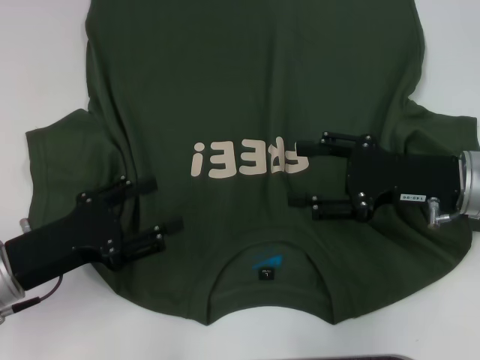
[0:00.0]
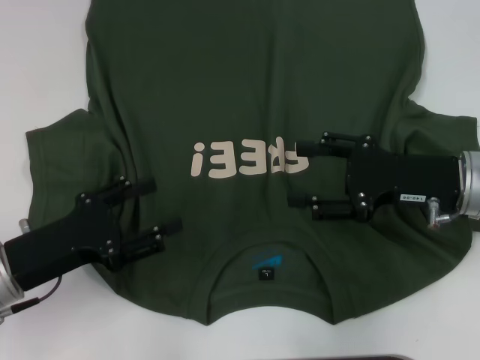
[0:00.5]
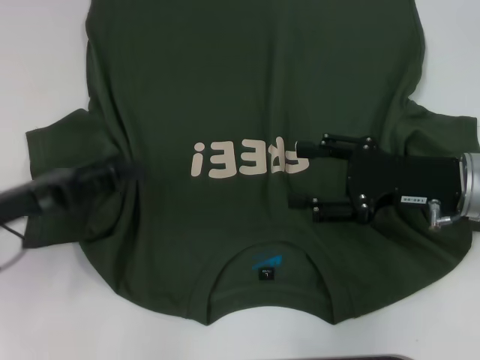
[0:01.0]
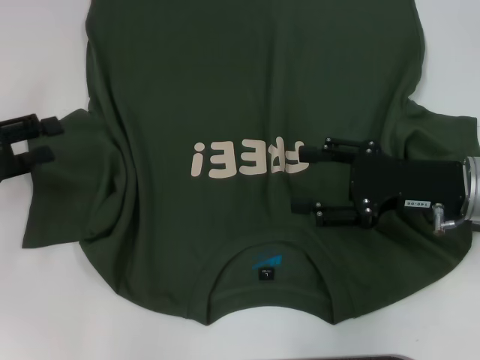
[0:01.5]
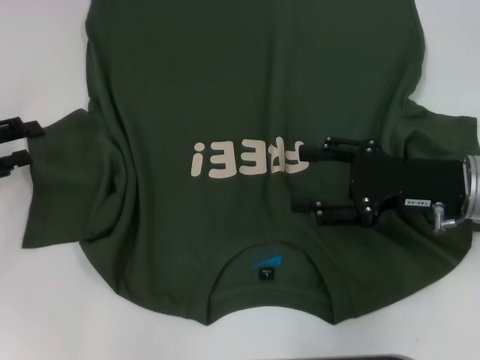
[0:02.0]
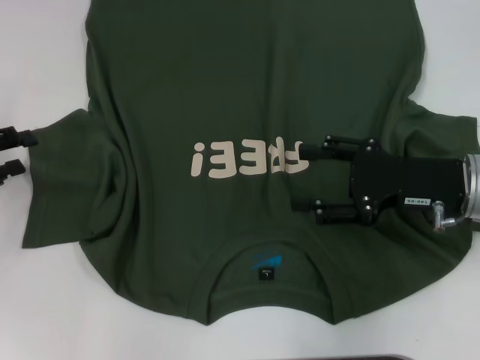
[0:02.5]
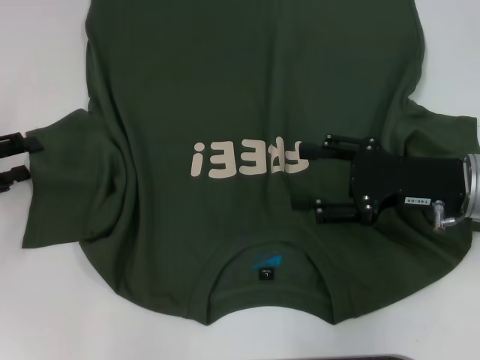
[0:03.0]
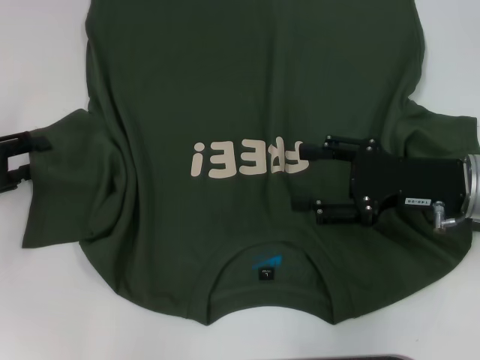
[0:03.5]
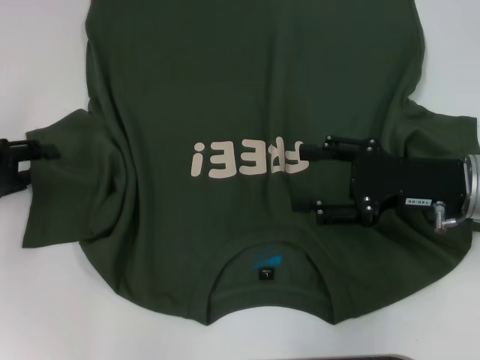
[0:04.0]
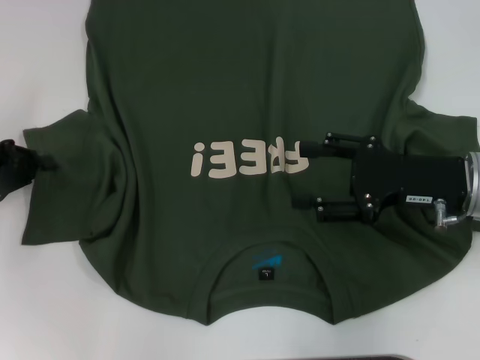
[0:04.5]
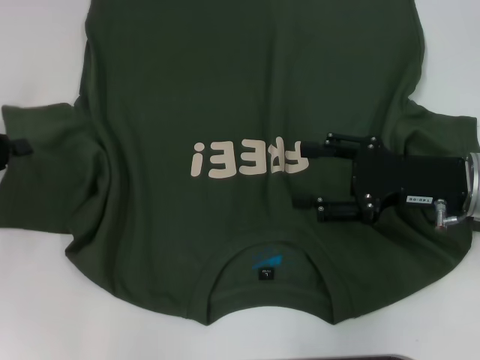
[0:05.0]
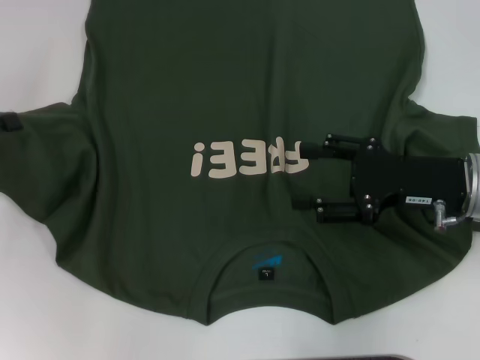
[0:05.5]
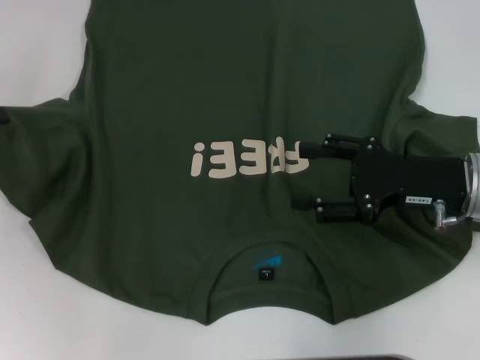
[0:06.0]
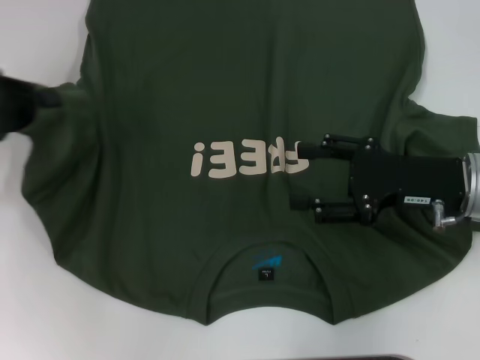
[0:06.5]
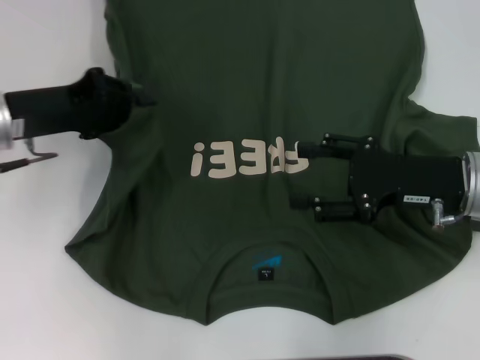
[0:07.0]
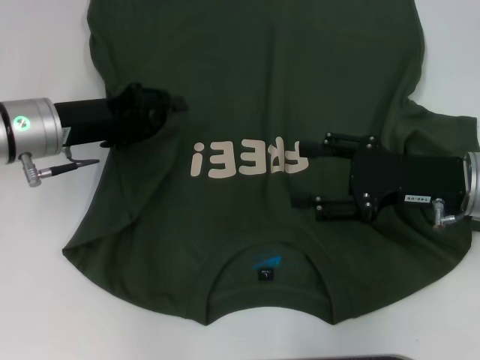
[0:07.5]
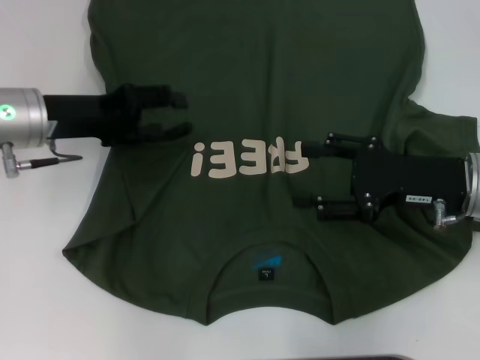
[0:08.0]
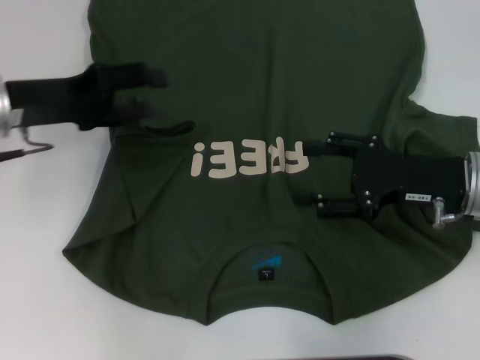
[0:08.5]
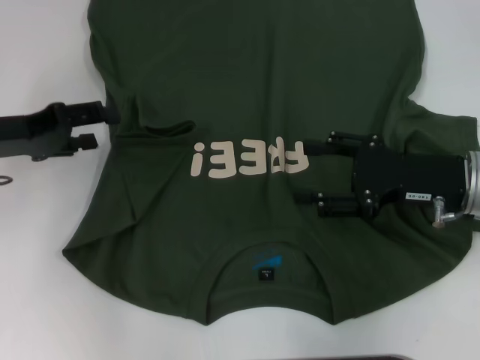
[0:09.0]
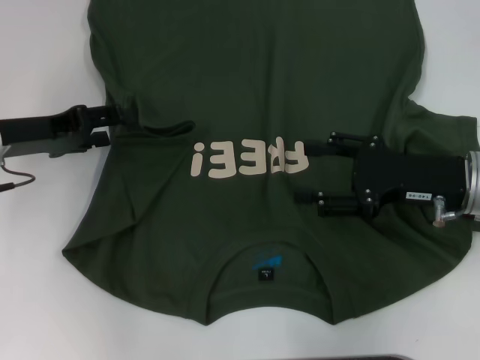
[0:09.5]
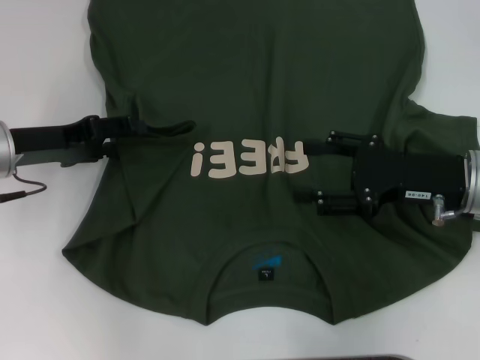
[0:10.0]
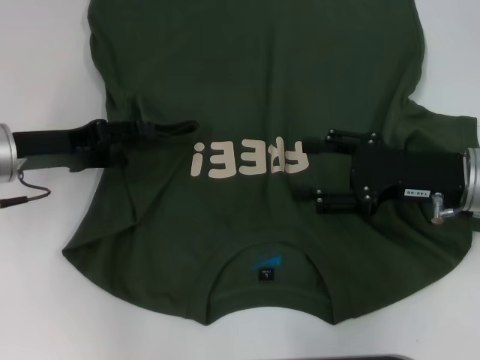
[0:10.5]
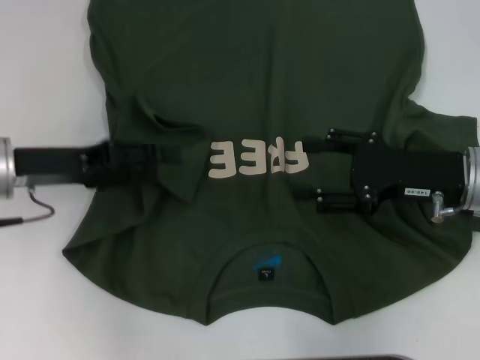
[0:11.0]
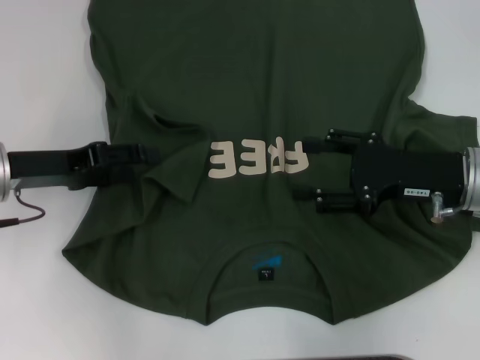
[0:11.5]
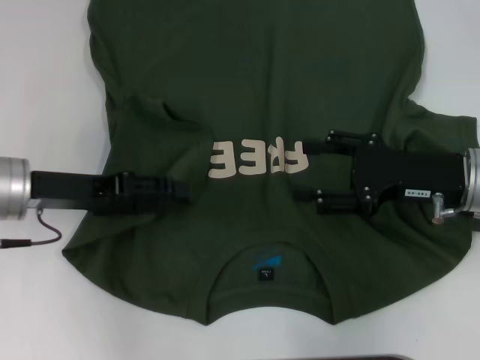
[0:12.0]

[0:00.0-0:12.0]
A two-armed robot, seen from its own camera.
Step, 0:00.0 to 0:10.5: Fold the bottom left sleeve with your left hand.
0:00.0 to 0:02.0: The left gripper shifts roughly 15 cm to the left and forward.
0:02.0 to 0:04.0: The grippers make only small movements.
0:04.0 to 0:06.0: The left gripper goes about 5 cm upward, and closes up.
0:06.0 to 0:08.0: The left gripper goes some 15 cm to the right, and opens up.
0:10.0 to 0:12.0: The grippers move only a little.

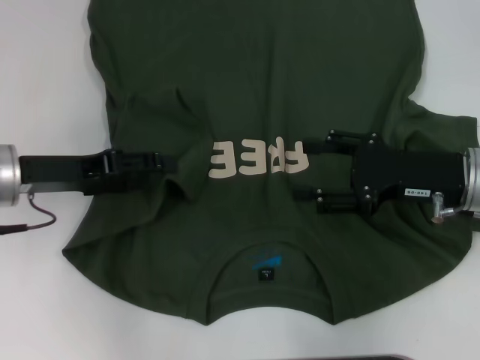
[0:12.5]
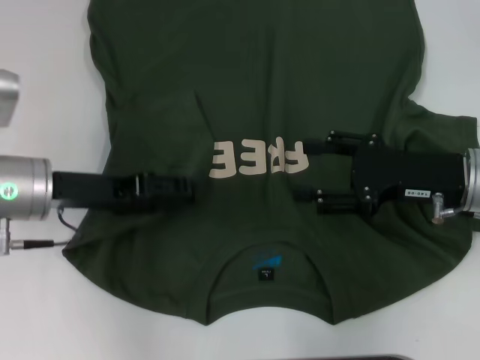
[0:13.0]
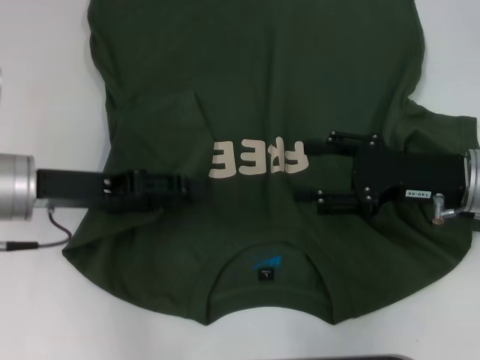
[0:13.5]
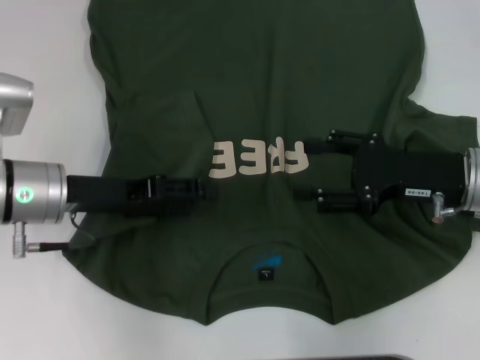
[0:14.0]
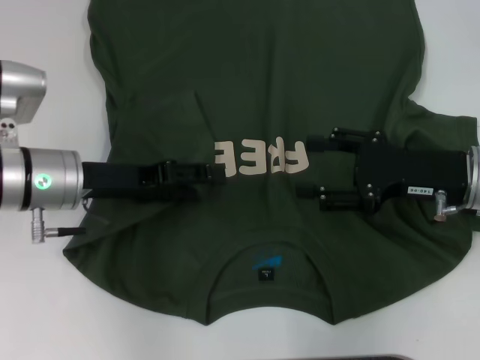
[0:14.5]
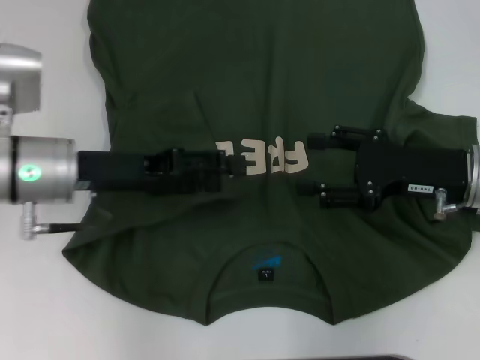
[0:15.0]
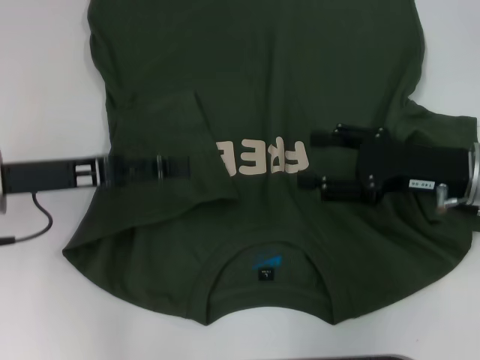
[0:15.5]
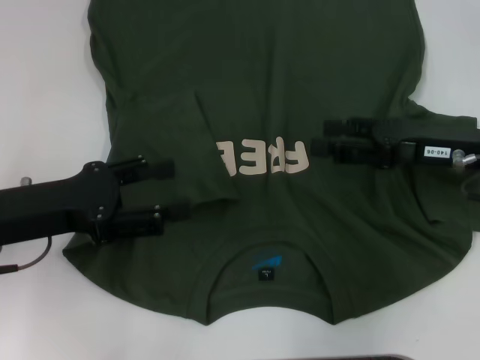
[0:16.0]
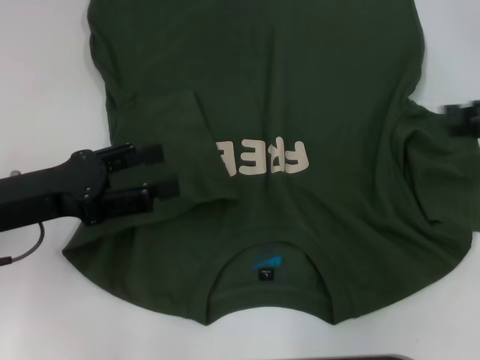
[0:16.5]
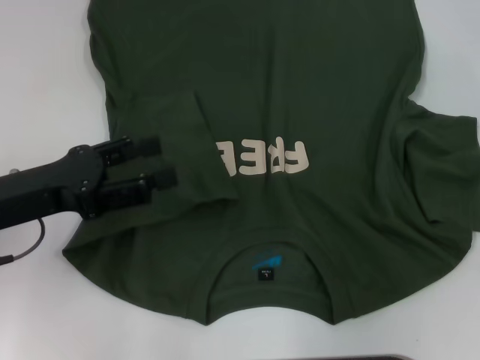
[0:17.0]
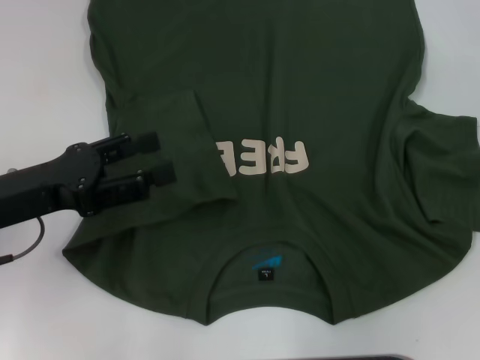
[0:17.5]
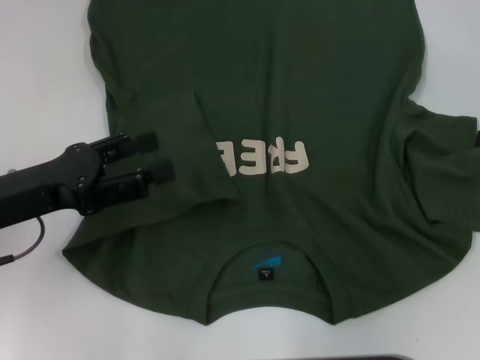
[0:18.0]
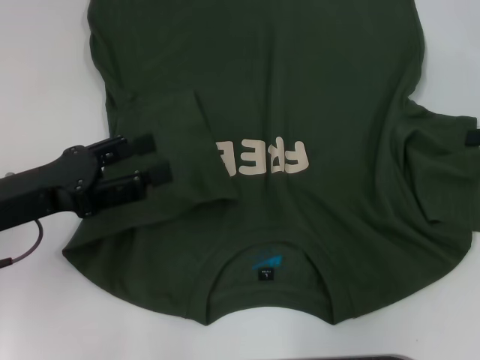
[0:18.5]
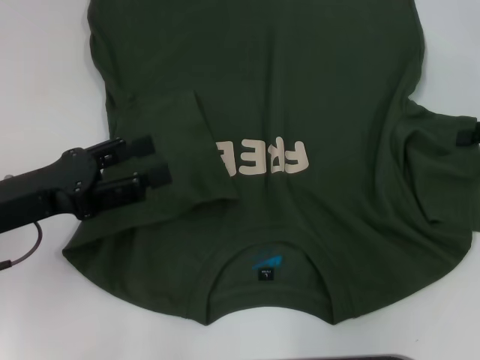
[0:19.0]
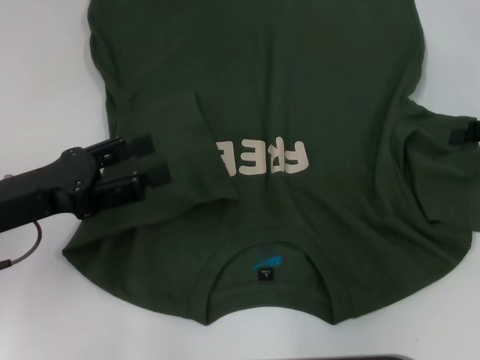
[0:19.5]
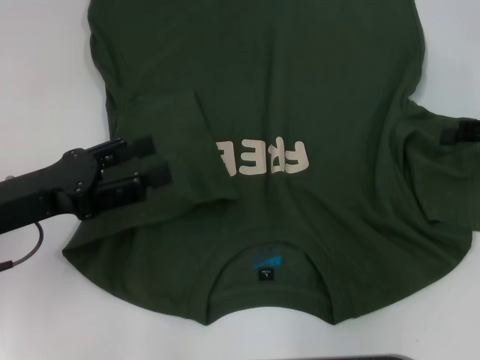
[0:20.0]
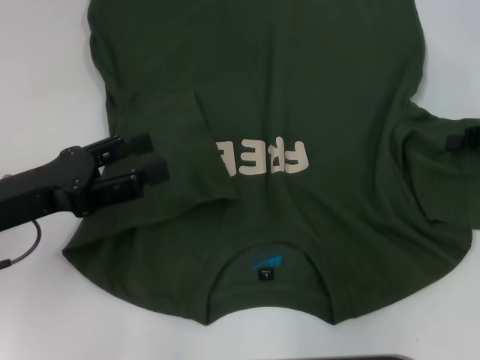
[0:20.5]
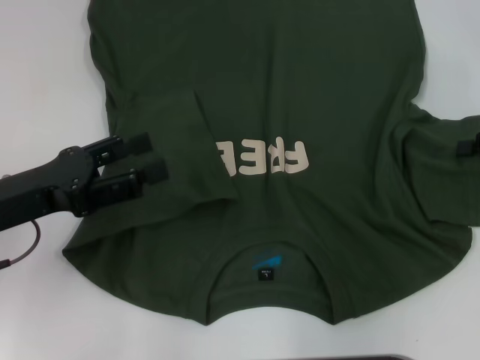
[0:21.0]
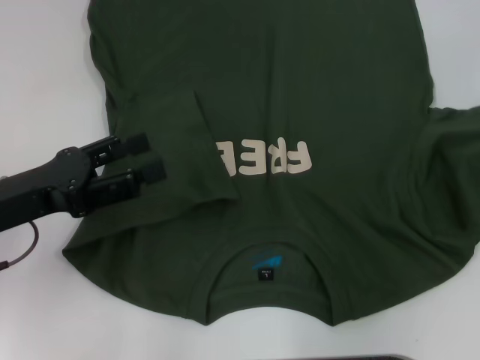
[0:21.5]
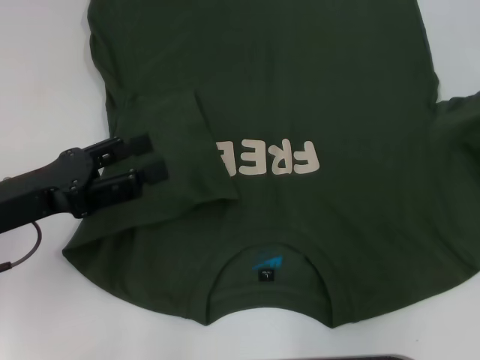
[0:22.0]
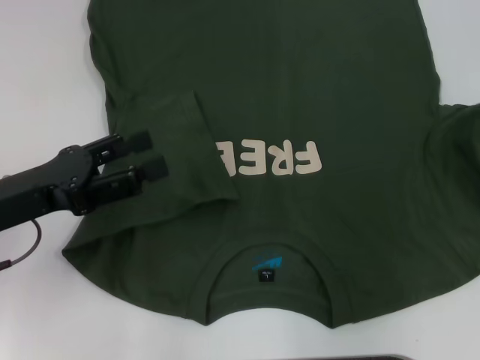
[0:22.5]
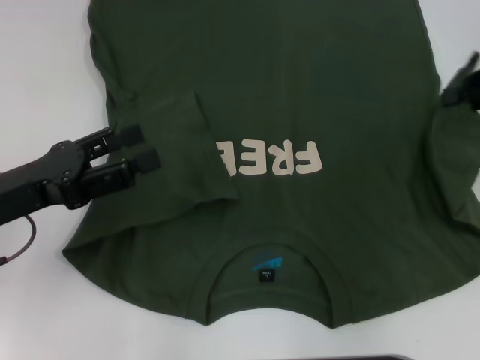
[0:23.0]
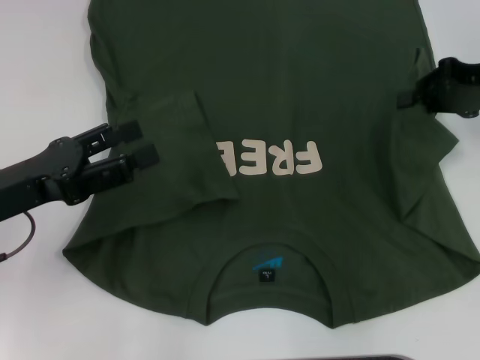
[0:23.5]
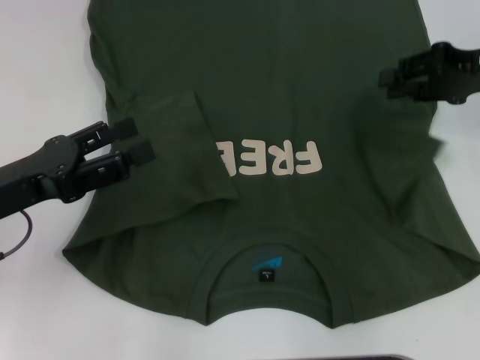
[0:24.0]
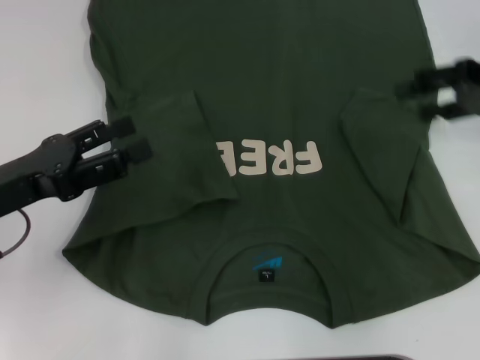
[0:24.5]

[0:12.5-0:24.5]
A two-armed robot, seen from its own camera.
0:12.5 to 0:14.5: The left gripper changes place by roughly 5 cm.
0:14.5 to 0:16.5: The left gripper goes roughly 10 cm backward and to the left. Meanwhile the right gripper moves to the right and upward, some 15 cm.
0:20.5 to 0:22.5: The right gripper heads upward, covering about 5 cm, and closes its fingers.
0:22.5 to 0:24.5: The right gripper heads to the left, covering roughly 5 cm, and opens its fingers.

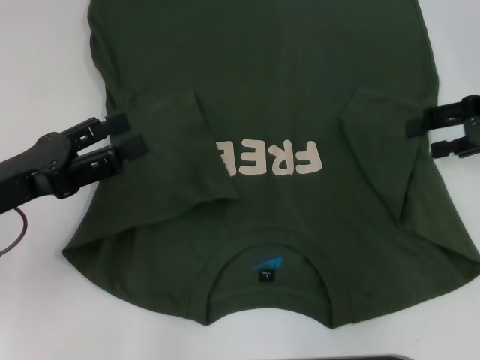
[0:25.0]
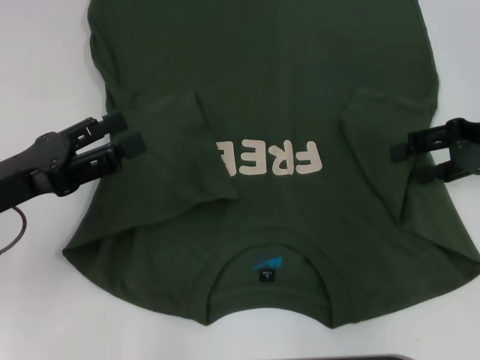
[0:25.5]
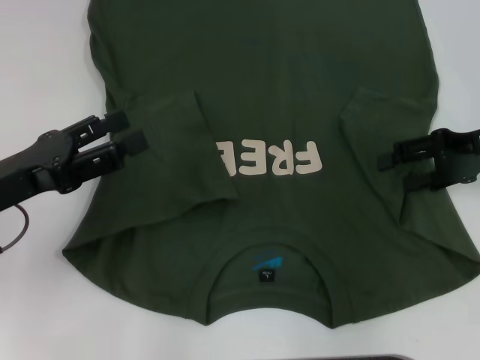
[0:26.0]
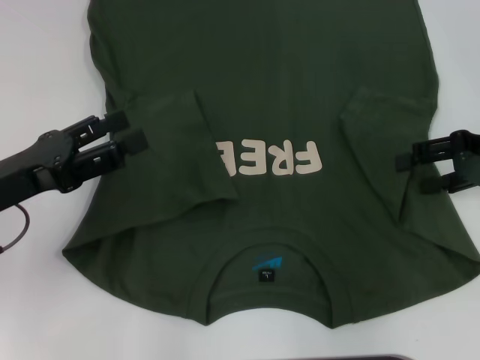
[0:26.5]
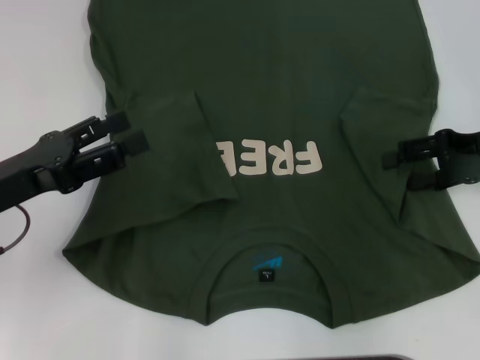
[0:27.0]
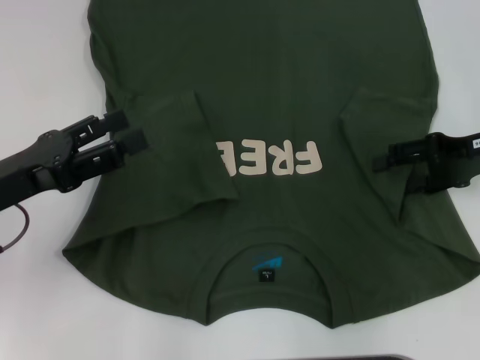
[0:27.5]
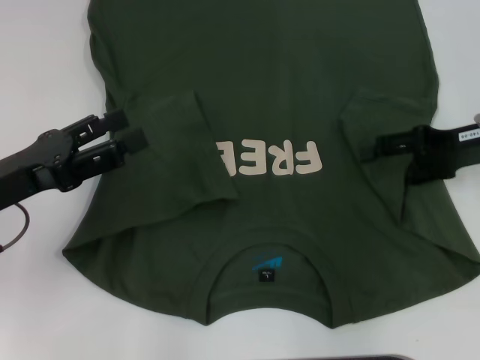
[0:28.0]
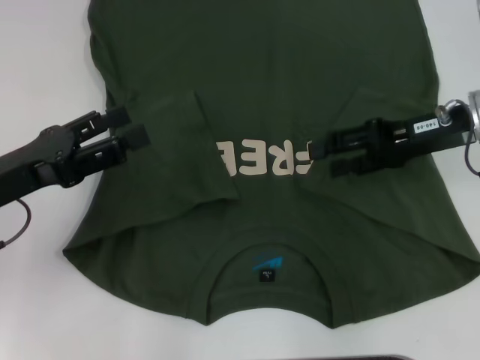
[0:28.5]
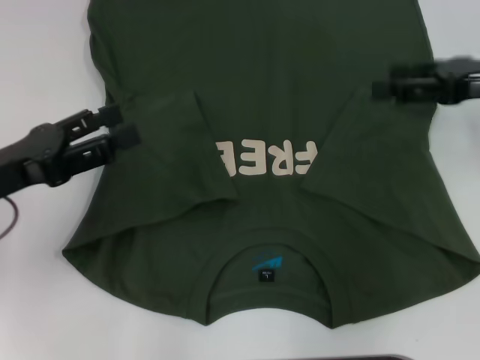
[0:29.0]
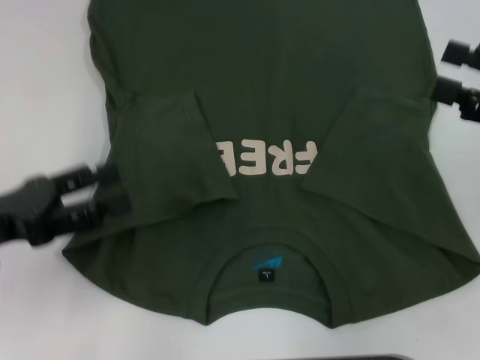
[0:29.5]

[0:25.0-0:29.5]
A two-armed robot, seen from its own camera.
Step, 0:25.0 to 0:28.5: Fold the bottom right sleeve with your right hand.
0:25.0 to 0:27.0: The grippers stay close to where they were, moving slightly.
0:27.0 to 0:29.5: The right gripper shifts roughly 10 cm backward.
